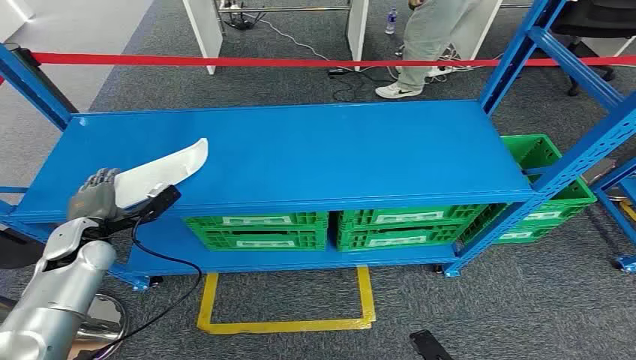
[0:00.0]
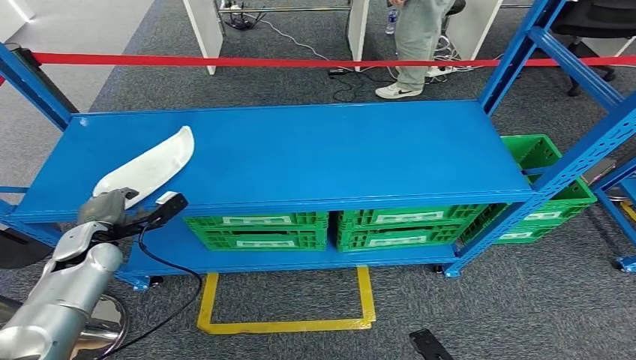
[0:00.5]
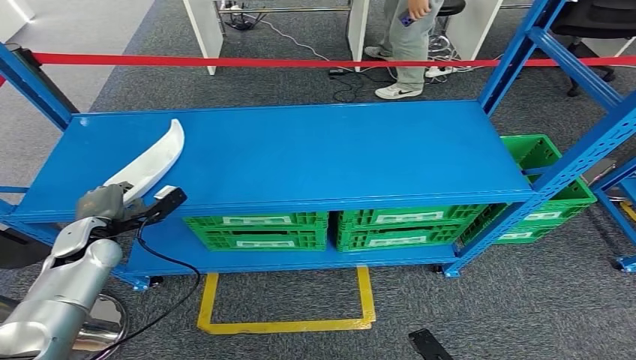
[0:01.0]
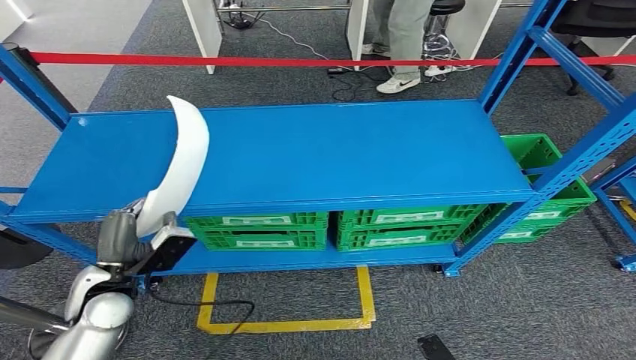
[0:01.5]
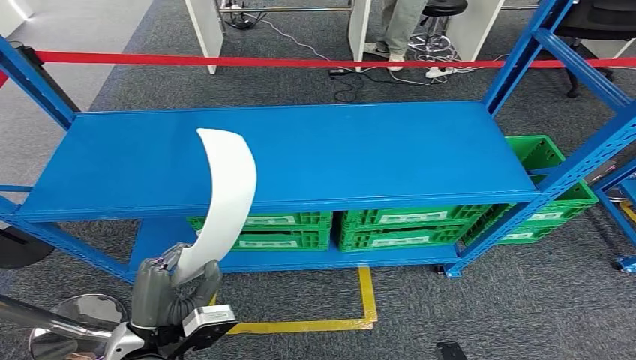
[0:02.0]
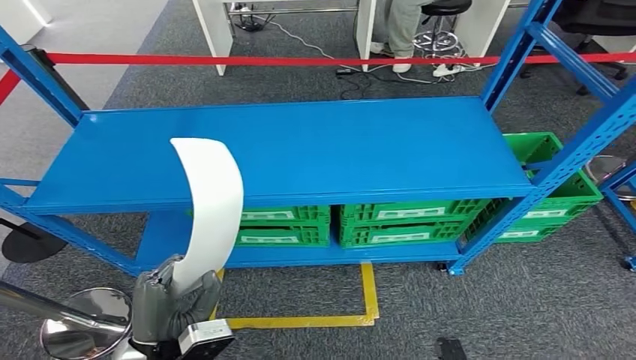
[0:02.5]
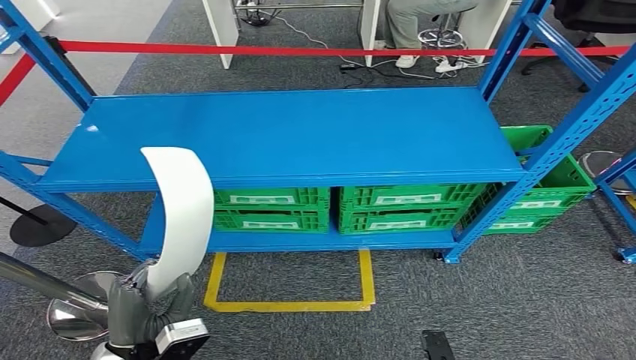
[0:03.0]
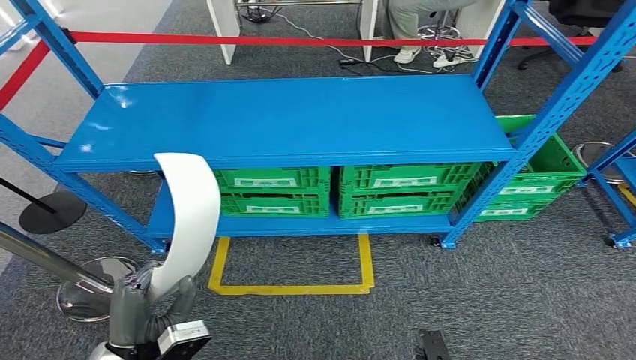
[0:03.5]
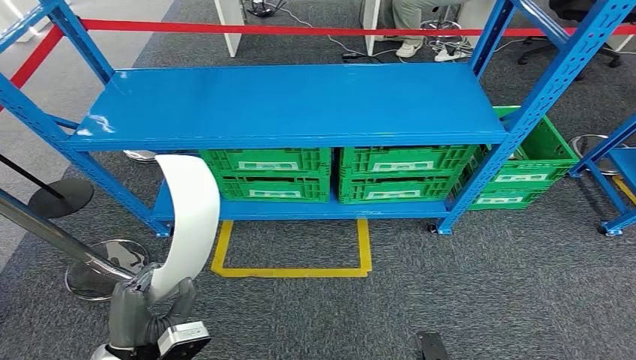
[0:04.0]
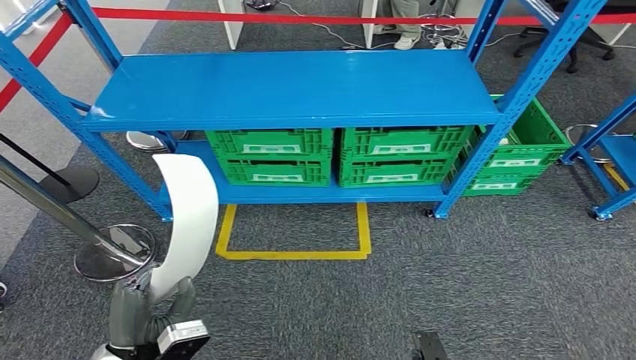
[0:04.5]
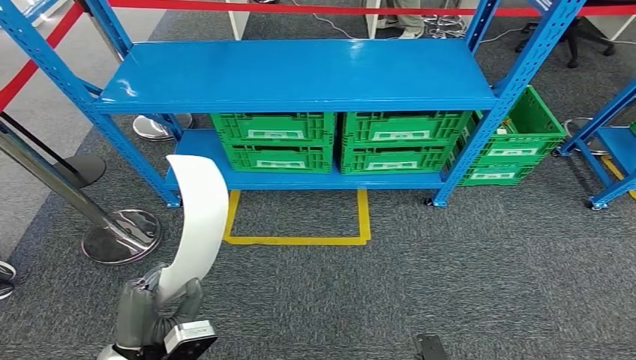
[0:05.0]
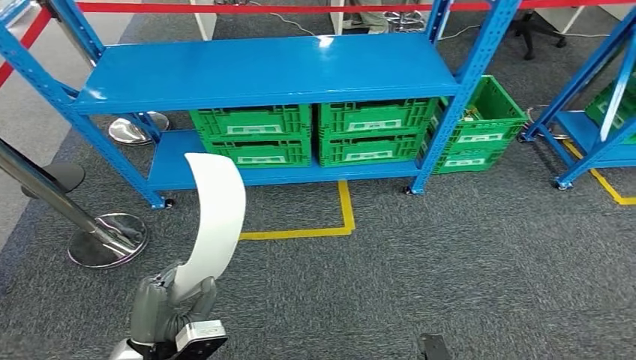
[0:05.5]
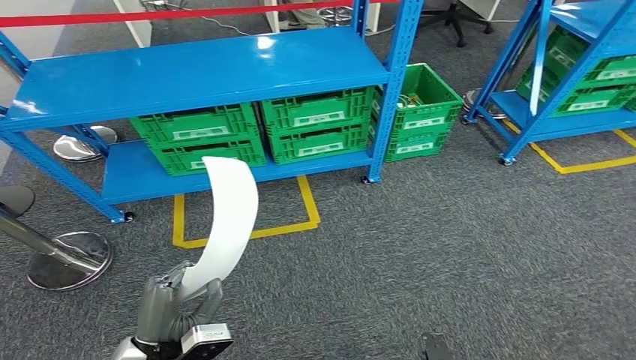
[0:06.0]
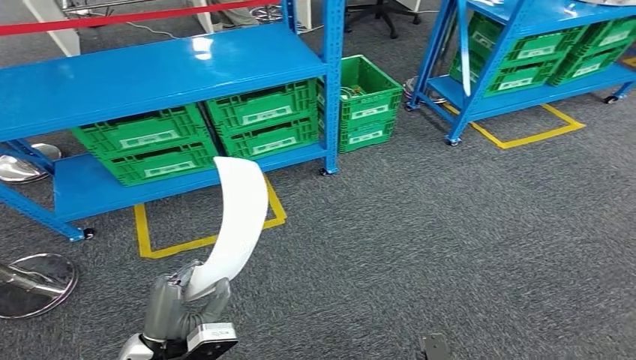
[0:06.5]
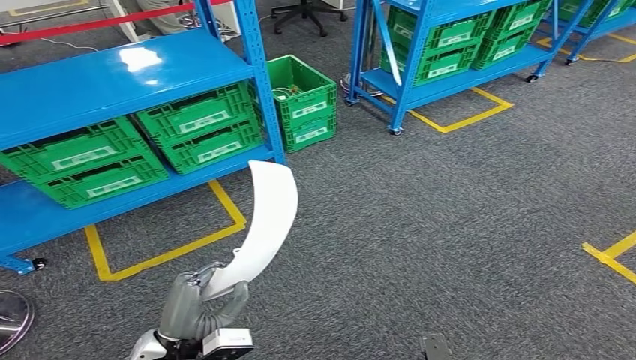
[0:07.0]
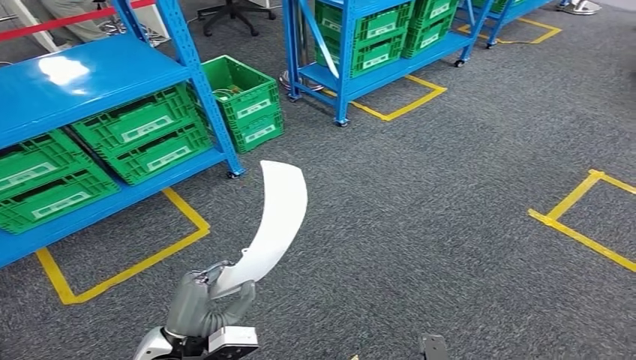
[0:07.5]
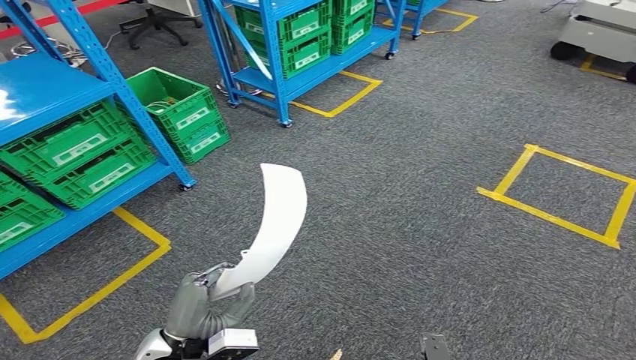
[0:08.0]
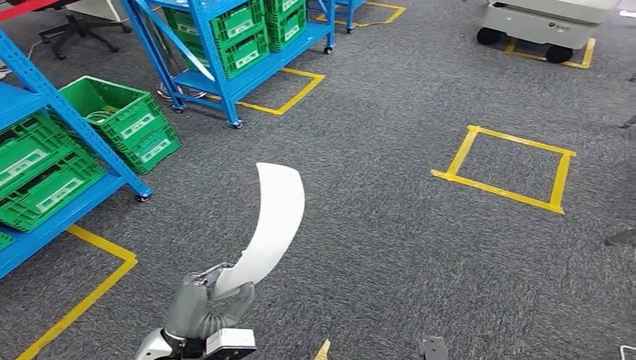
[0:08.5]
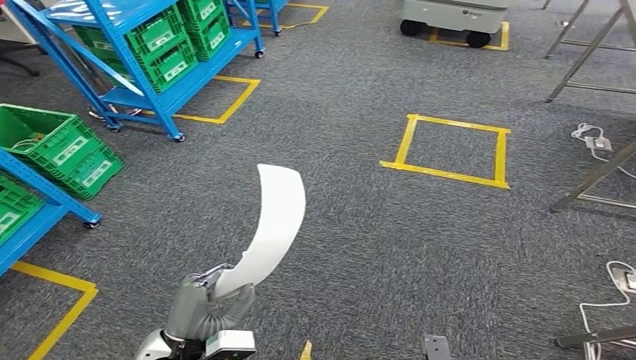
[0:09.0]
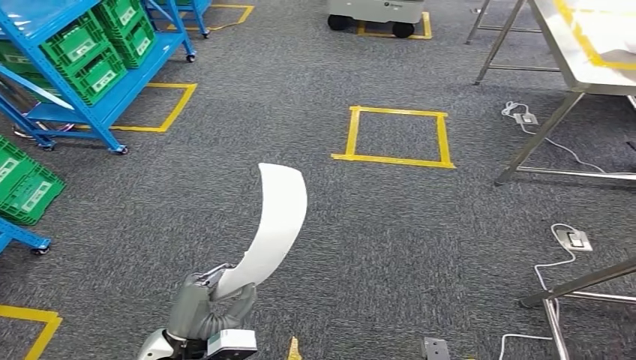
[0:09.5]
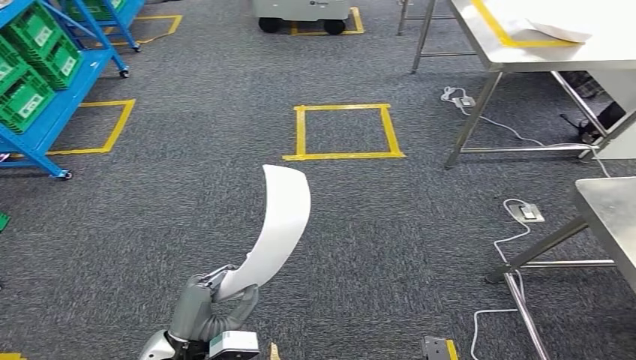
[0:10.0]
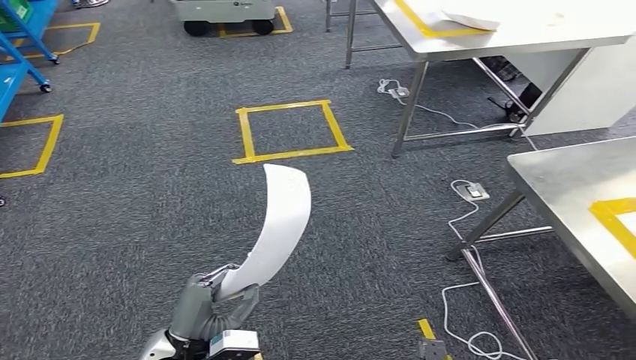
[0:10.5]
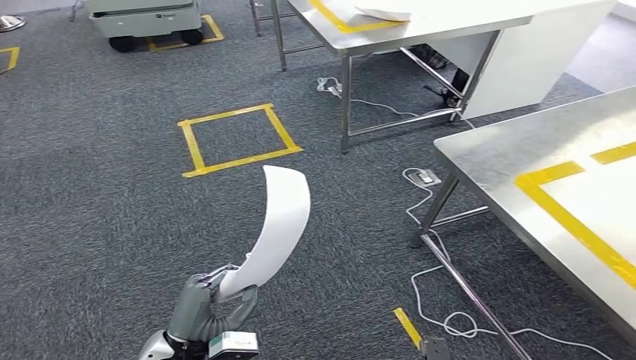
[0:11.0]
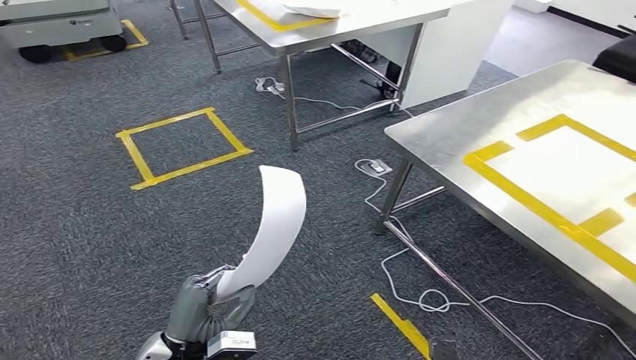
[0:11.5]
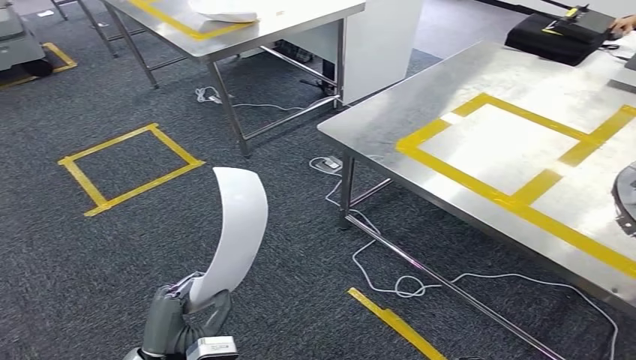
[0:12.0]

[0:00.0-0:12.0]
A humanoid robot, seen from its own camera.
Step, 0:00.0 to 0:03.5: Take small components from the rack.

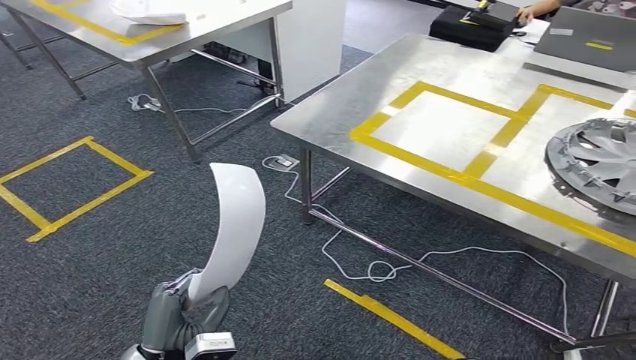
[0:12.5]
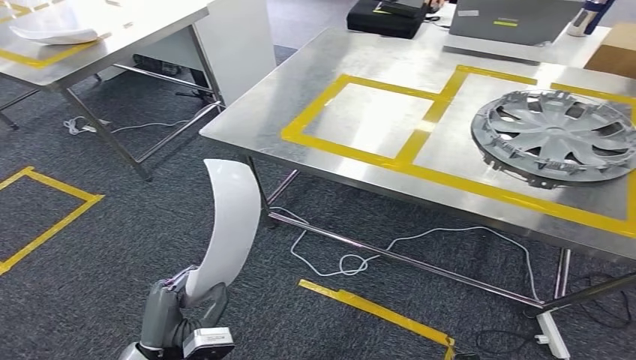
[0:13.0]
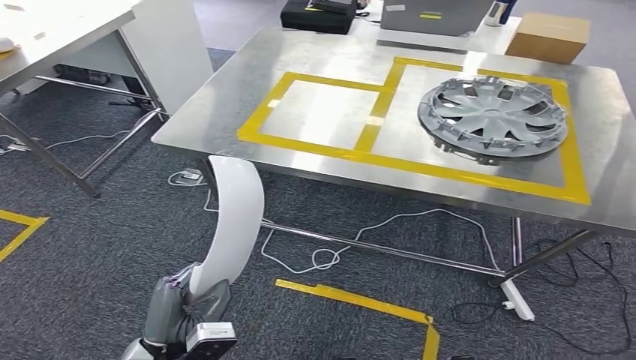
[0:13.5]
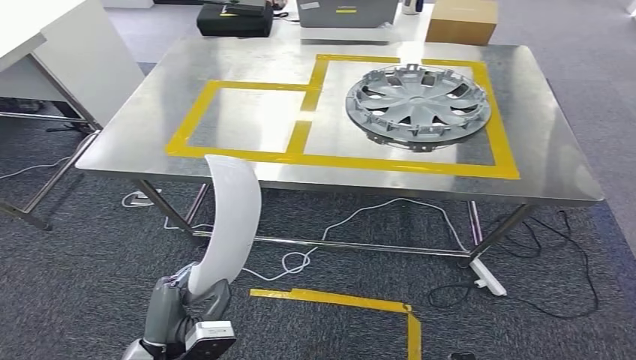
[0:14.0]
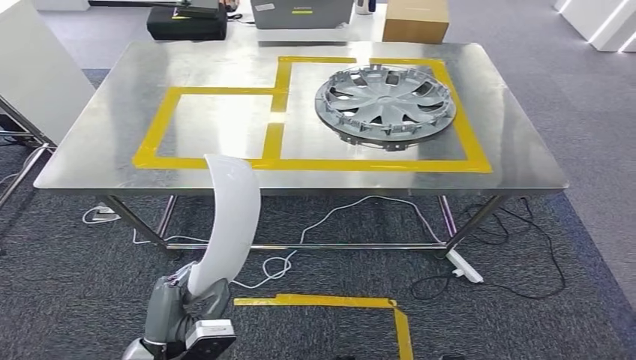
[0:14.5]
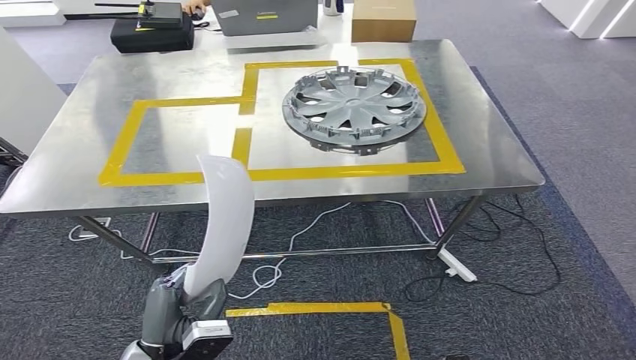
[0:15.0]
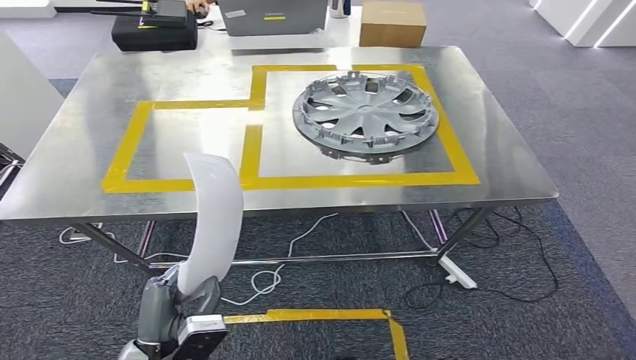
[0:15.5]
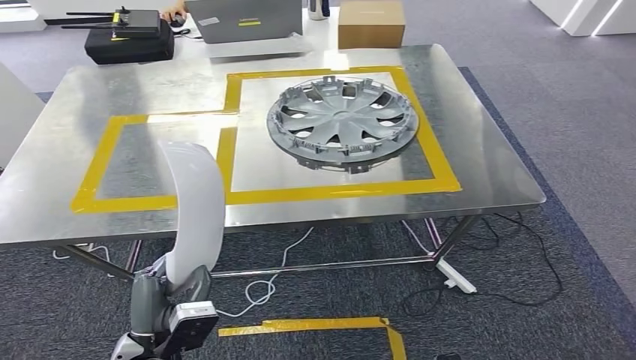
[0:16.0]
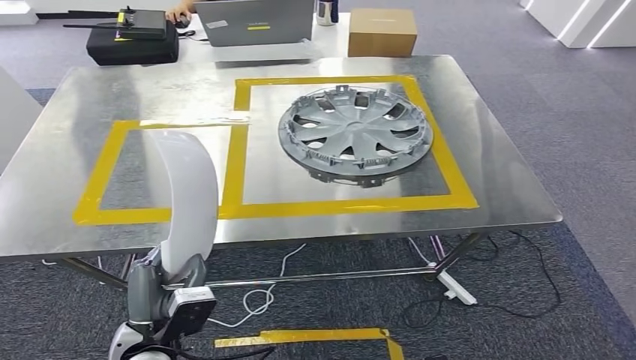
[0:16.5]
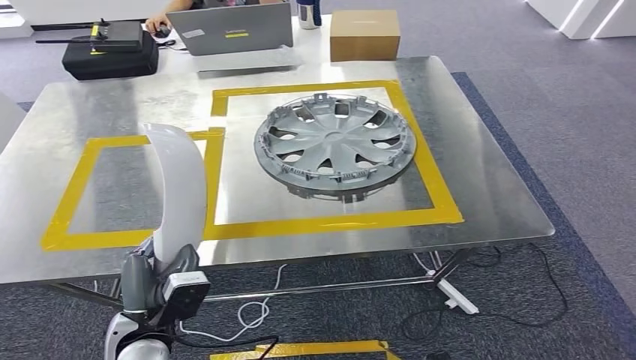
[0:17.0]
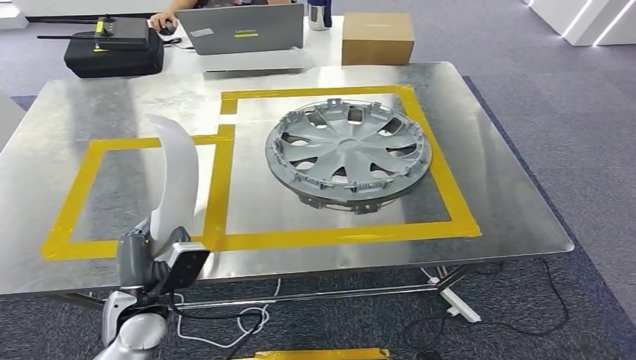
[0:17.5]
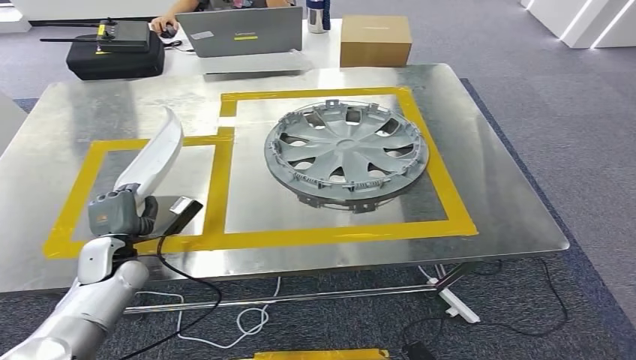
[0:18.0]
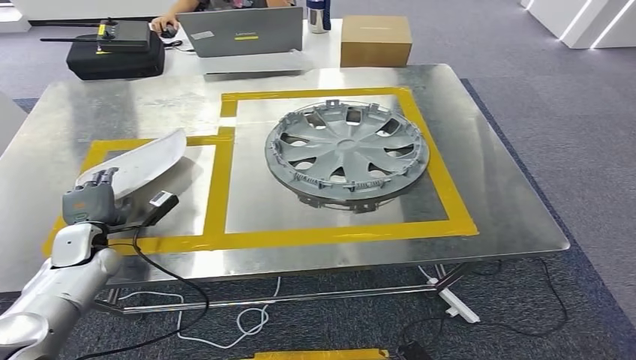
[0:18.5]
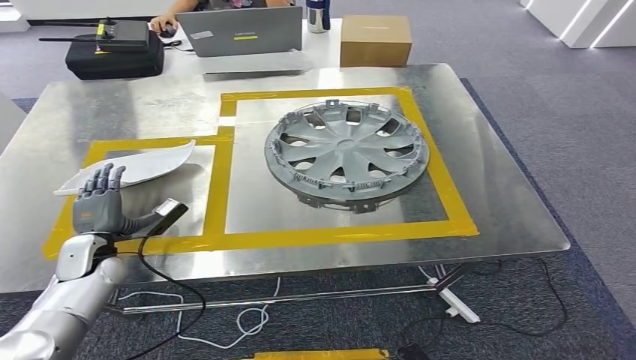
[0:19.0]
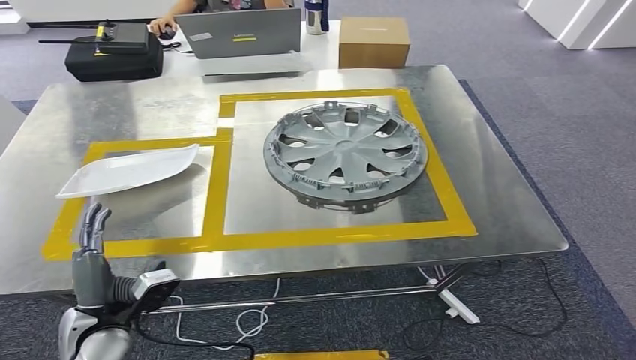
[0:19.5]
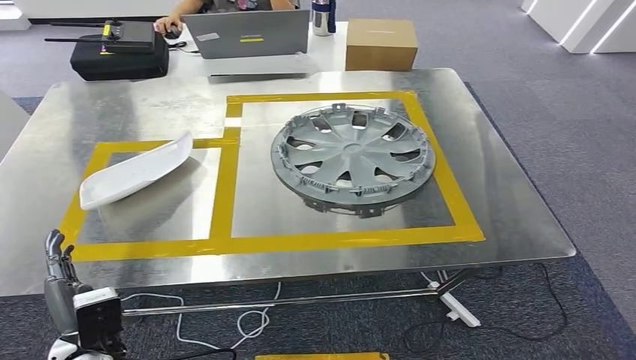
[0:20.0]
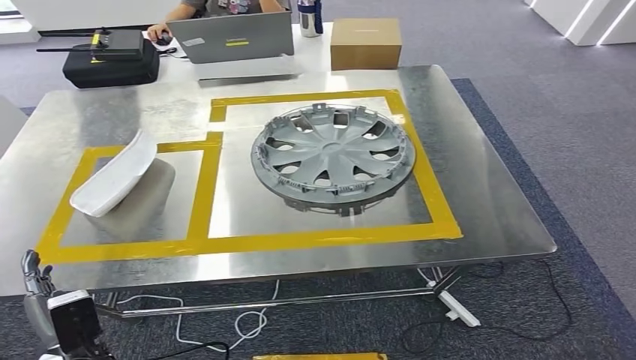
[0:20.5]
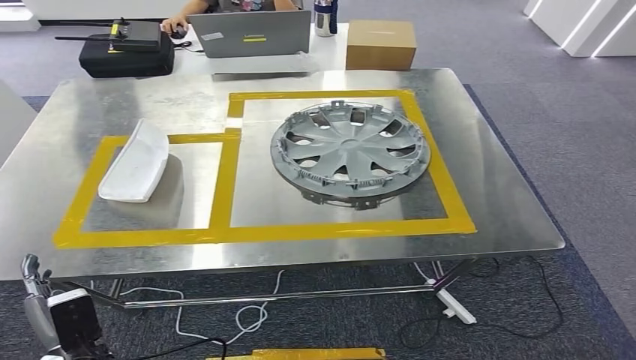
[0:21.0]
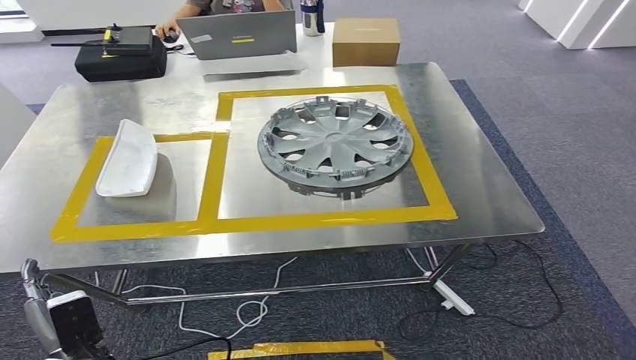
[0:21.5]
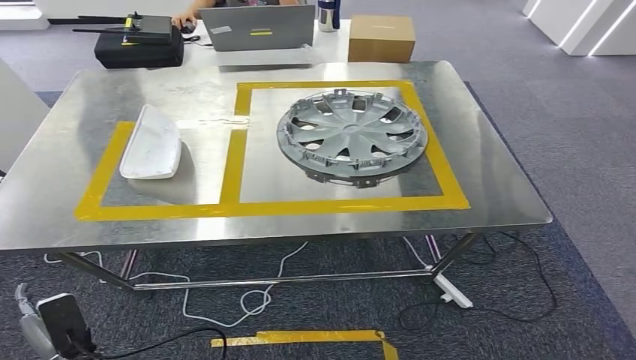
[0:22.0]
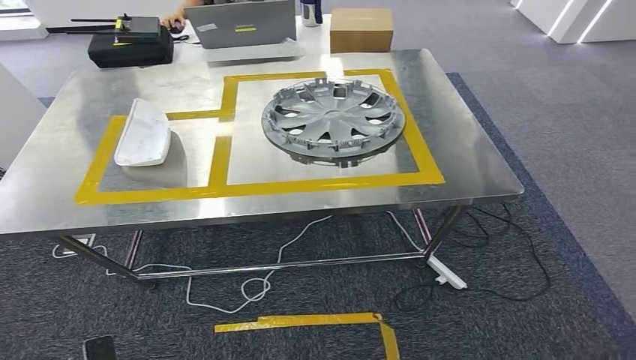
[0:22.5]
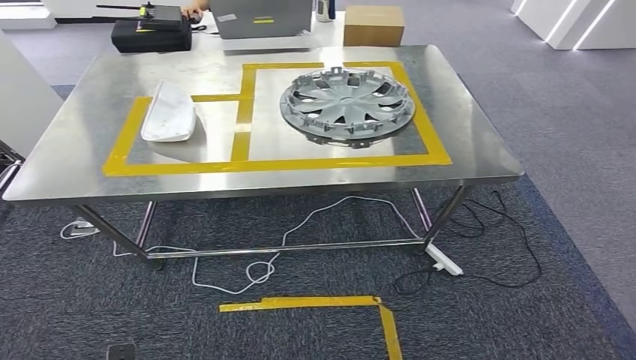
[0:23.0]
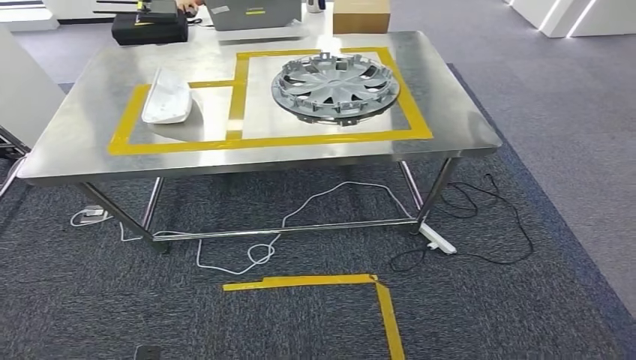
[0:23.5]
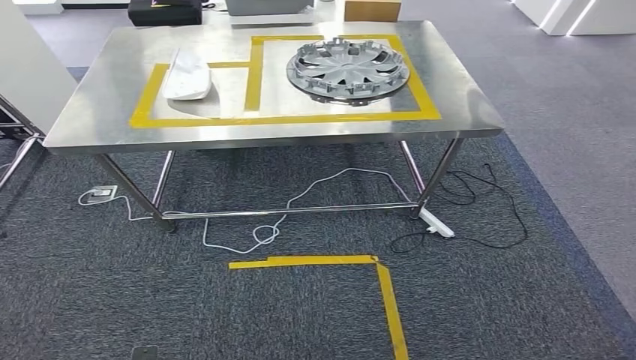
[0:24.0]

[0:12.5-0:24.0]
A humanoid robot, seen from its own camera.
Step, 0:12.5 to 0:16.5: Move the small parts to the workbench.
Step, 0:17.0 to 0:21.5: Insert the small parts into the corresponding holes on the workbench.
